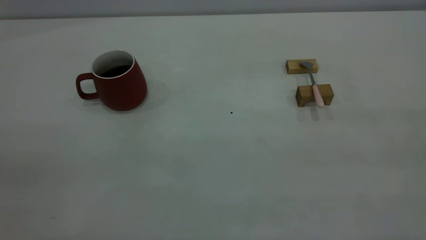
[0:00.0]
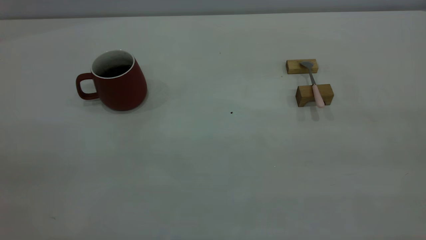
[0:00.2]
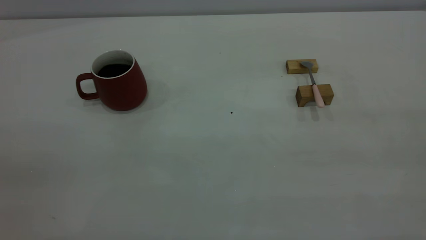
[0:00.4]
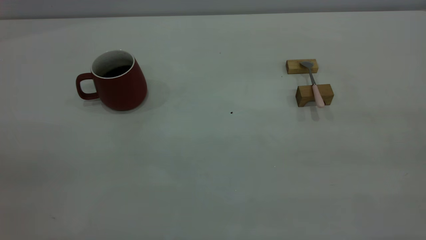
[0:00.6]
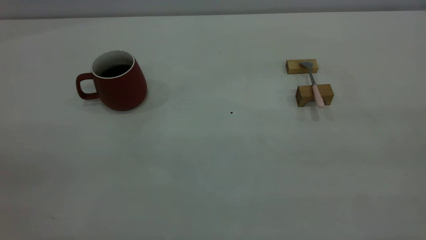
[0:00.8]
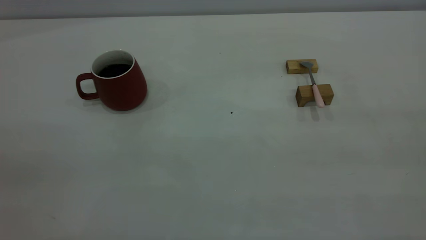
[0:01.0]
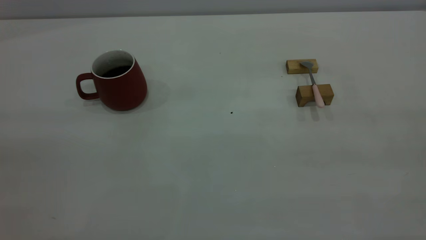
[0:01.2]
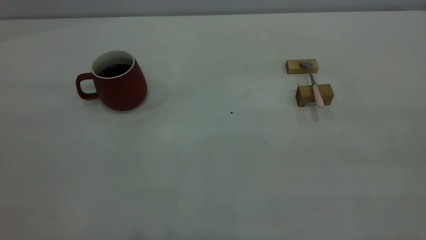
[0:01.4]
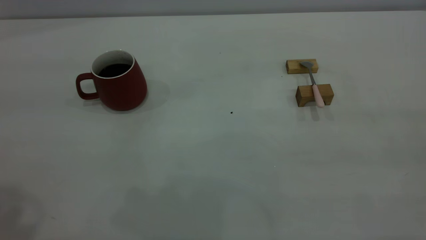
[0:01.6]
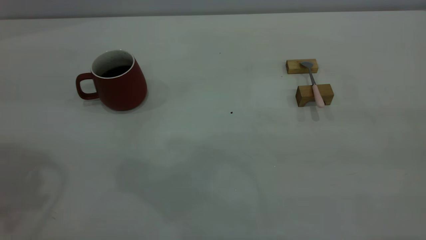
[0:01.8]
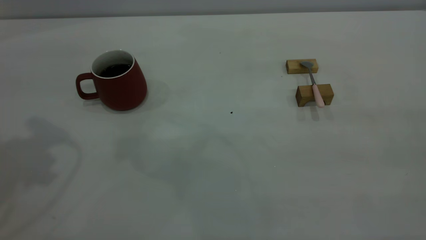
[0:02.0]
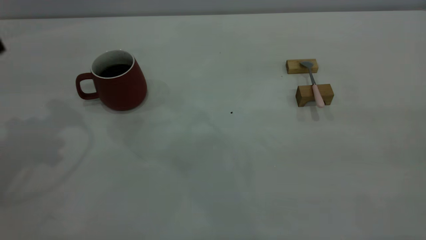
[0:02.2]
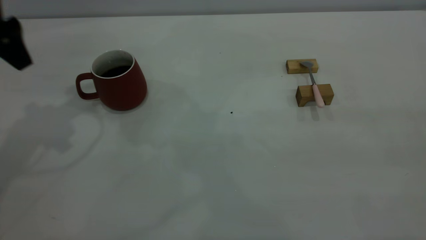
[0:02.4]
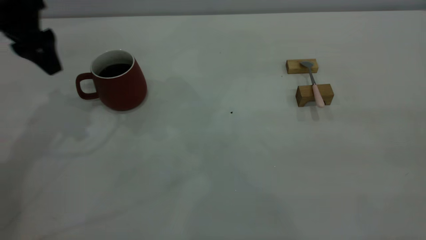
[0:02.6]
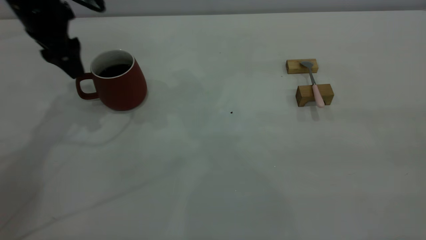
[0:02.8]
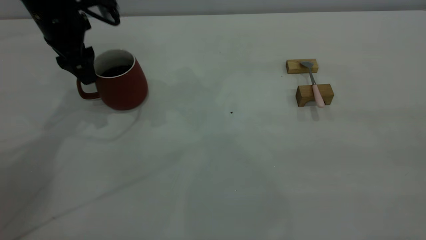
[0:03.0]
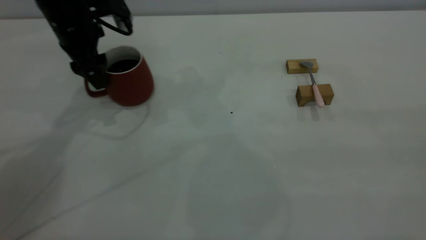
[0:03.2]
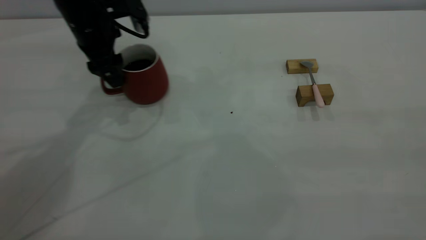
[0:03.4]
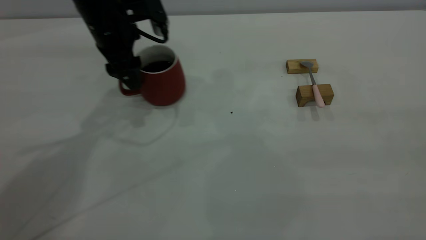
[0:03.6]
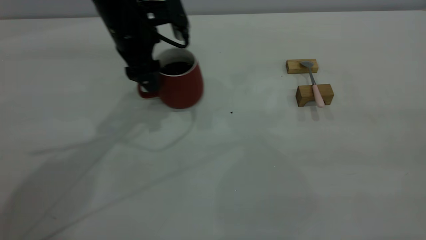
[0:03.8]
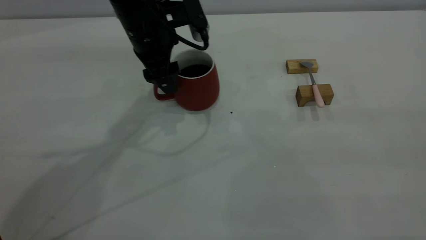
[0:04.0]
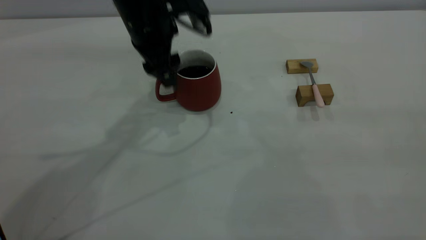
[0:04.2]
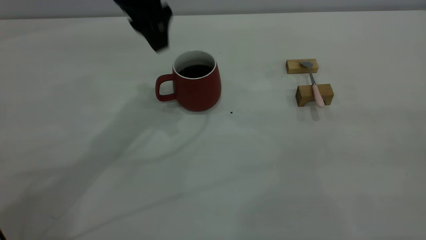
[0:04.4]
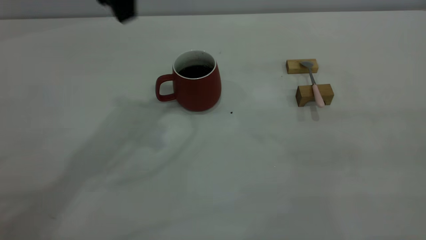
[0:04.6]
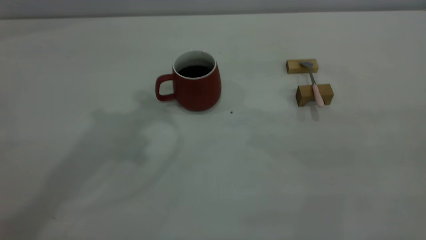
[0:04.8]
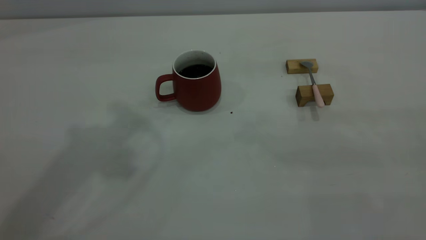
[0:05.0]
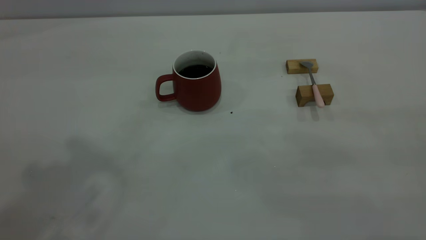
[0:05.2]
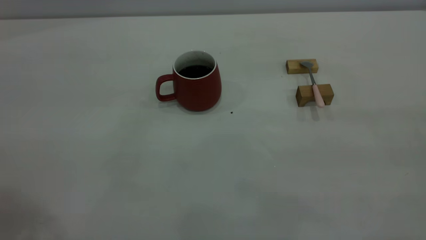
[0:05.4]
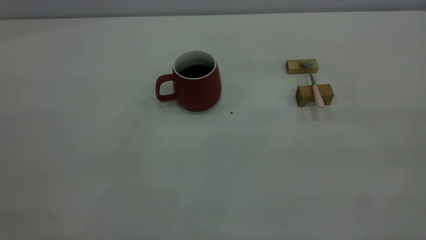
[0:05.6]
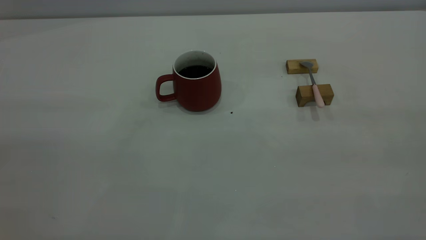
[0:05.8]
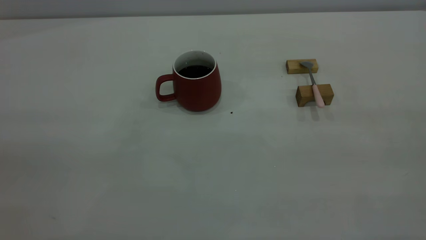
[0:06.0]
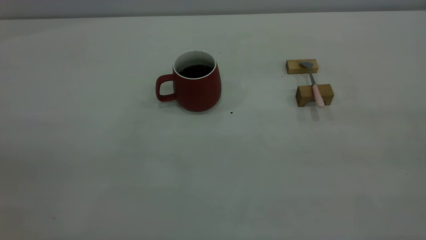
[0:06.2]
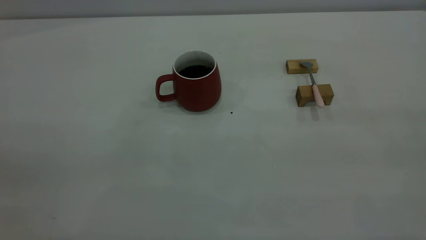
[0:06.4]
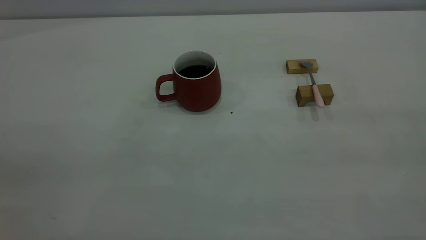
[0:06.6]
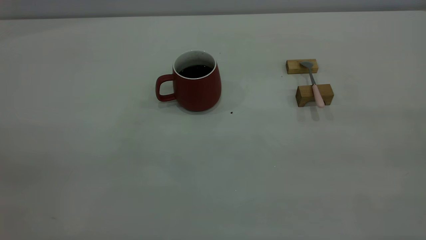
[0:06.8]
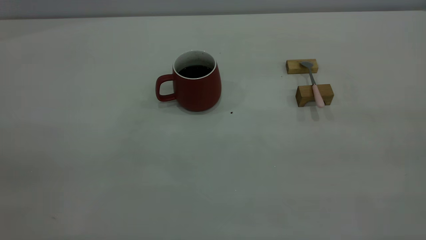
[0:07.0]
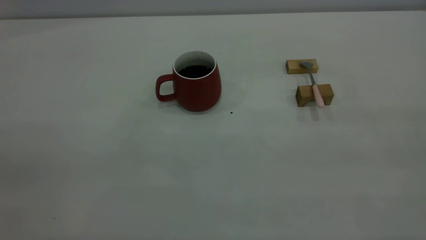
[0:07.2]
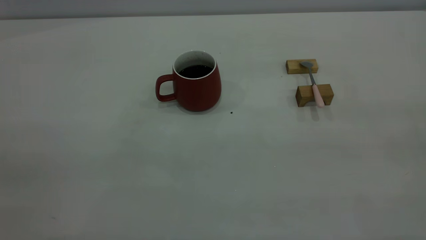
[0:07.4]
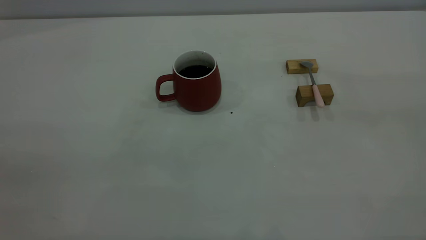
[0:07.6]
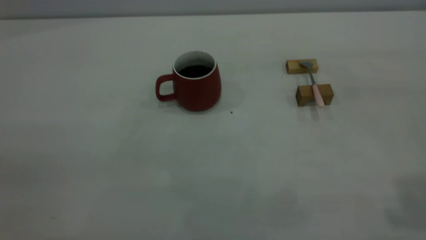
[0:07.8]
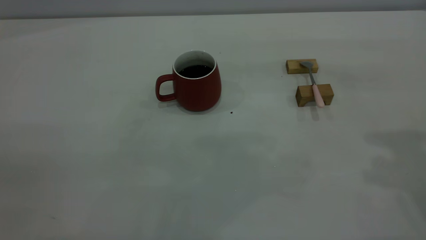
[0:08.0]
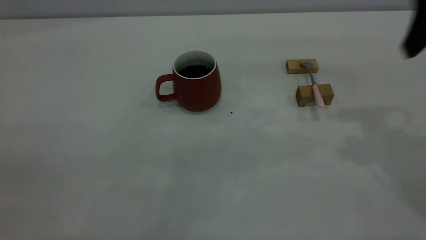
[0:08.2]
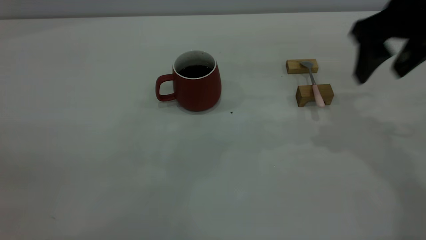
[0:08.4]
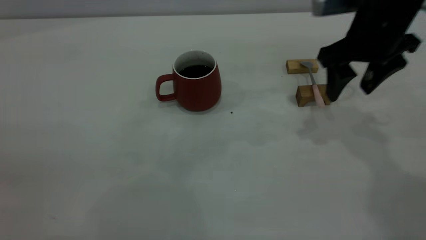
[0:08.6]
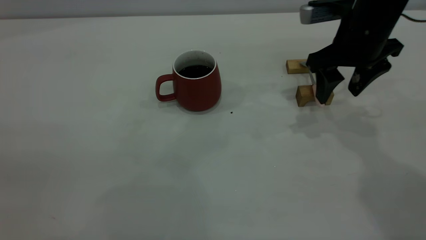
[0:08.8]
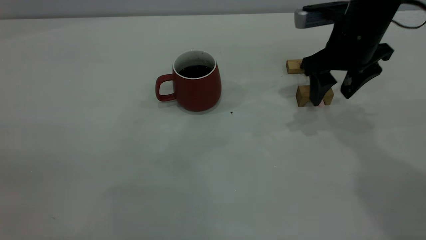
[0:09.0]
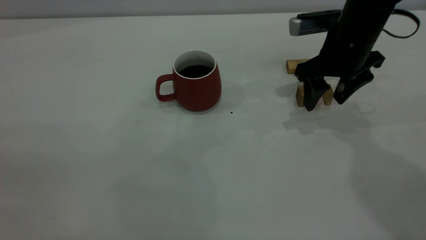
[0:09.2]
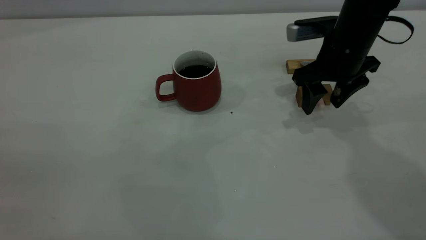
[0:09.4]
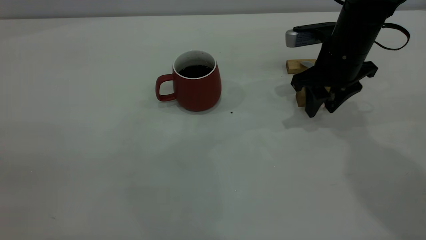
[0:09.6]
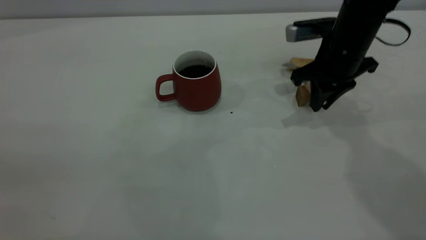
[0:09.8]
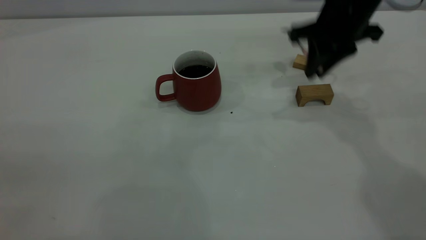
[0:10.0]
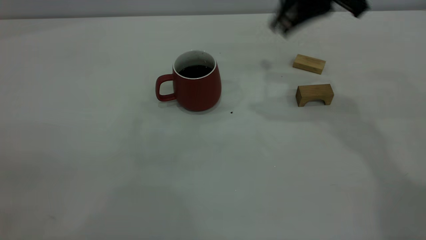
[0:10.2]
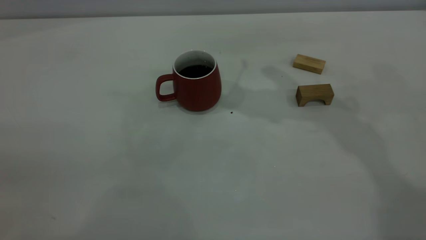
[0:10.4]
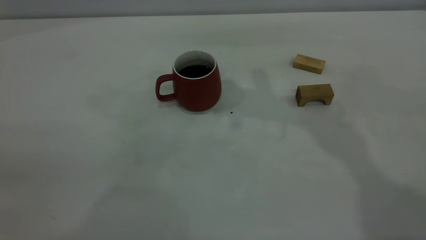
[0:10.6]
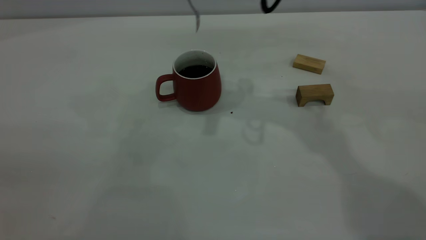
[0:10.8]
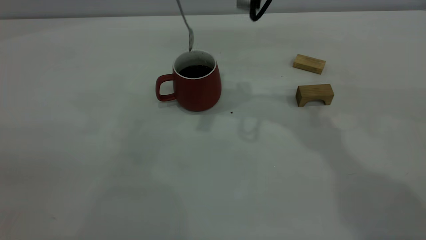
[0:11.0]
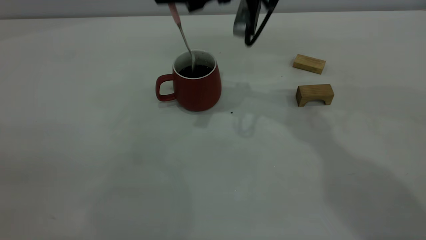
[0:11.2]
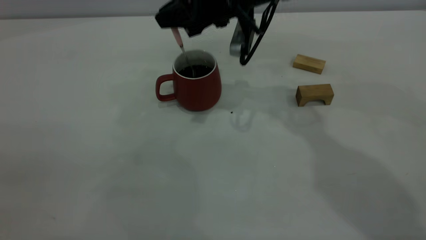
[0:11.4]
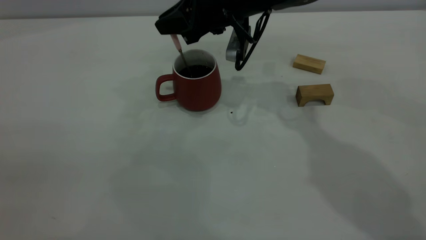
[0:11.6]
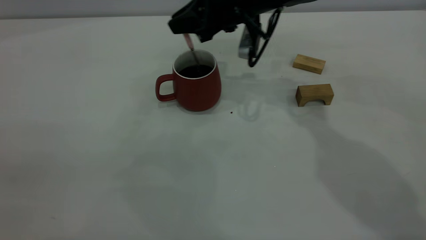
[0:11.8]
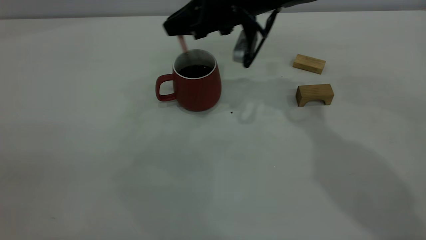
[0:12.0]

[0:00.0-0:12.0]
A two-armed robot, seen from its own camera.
Step, 0.0 to 4.4 s: Move the cup with coffee to the center of view.
Step, 4.6 to 9.8 s: Pick up the spoon.
1.6 to 3.0 s: The left gripper heads forward and downward, covering some 35 cm.
3.0 to 4.4 s: The left gripper goes roughly 15 cm to the right and upward.
4.4 to 6.0 s: The left gripper is displaced backward and to the left by some 40 cm.
7.6 to 9.0 s: The right gripper goes some 40 cm forward and downward, and opens.
9.0 to 10.4 s: The right gripper moves upward and to the left, roughly 15 cm, and closes.
10.4 to 12.0 s: The right gripper heads downward and to the left, covering about 15 cm.

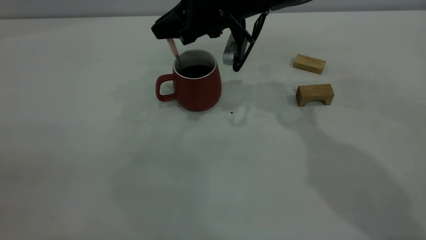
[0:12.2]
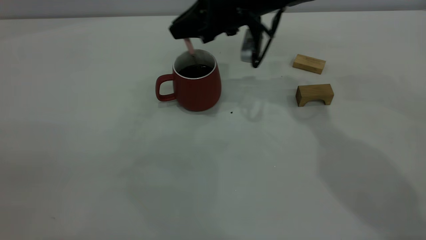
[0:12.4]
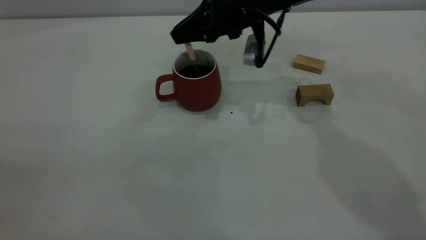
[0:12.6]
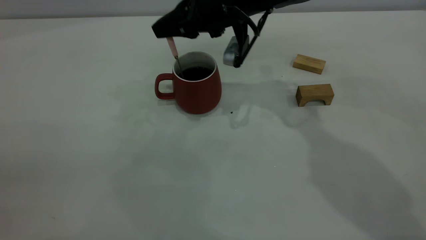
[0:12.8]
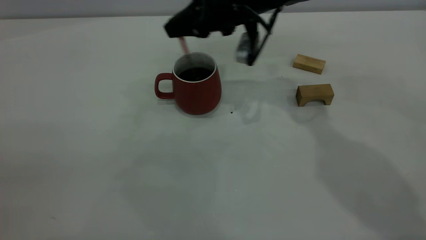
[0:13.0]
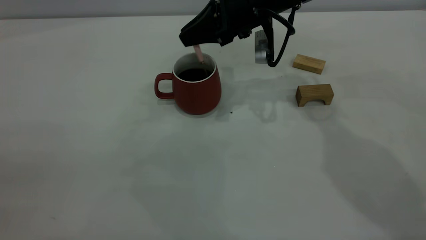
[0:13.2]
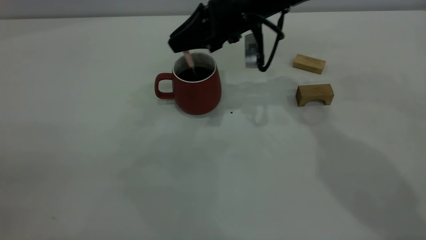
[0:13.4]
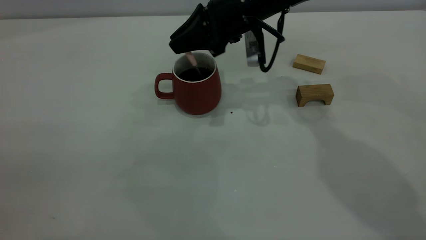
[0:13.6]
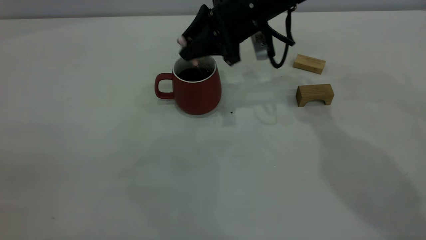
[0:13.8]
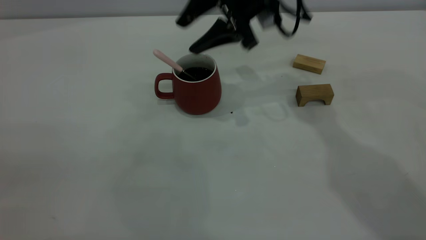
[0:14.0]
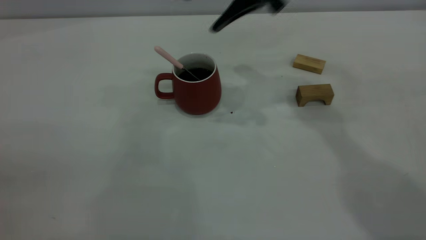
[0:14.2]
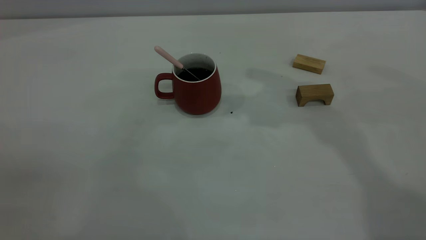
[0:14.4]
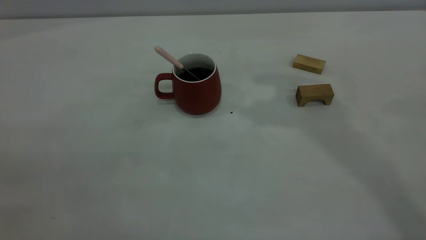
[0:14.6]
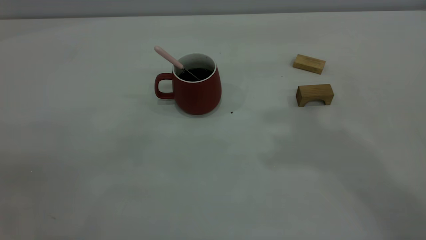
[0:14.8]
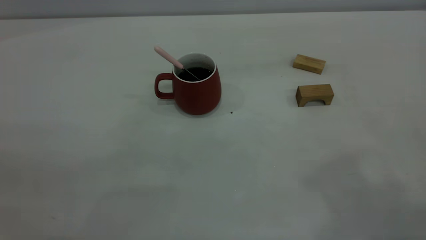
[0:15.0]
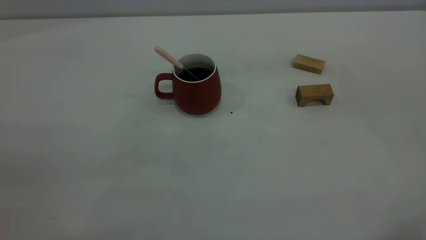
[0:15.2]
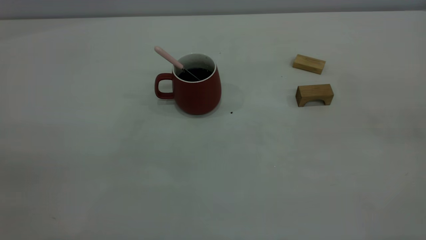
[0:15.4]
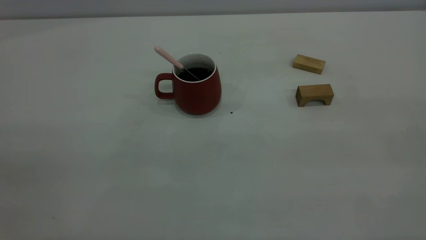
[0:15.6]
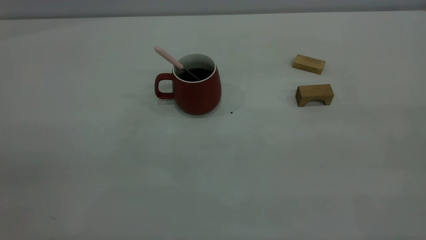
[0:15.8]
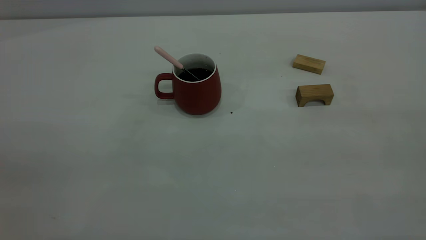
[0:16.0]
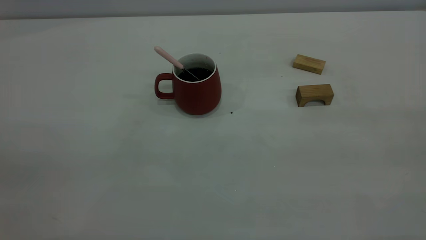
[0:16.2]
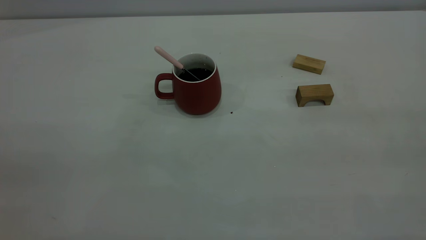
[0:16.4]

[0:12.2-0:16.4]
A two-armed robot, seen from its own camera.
12.2 to 13.6 s: There are only small adjustments of the grippers.
13.6 to 15.0 s: The right gripper shifts some 40 cm upward, backward and to the right, and opens and closes again.

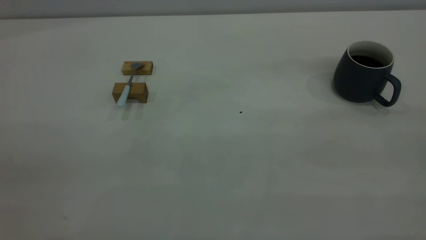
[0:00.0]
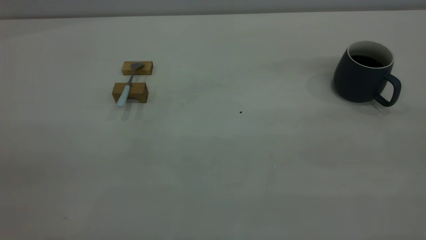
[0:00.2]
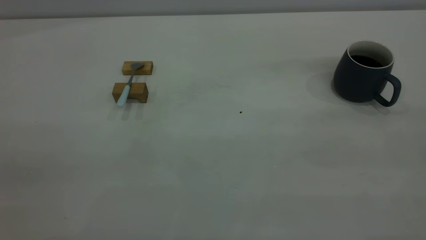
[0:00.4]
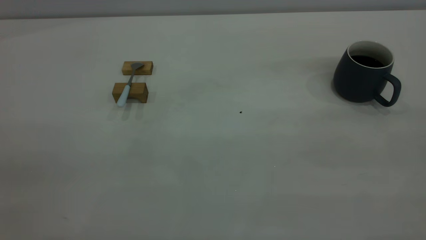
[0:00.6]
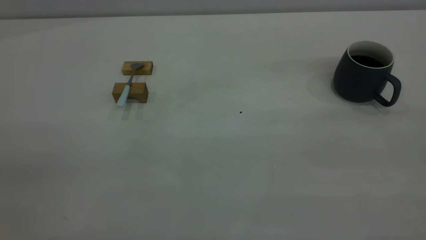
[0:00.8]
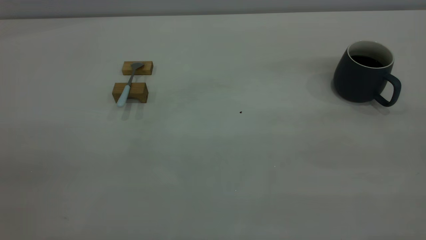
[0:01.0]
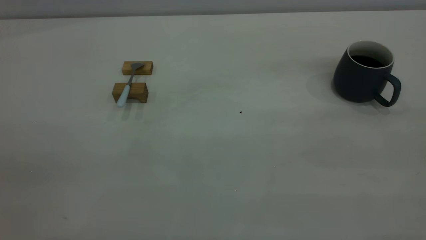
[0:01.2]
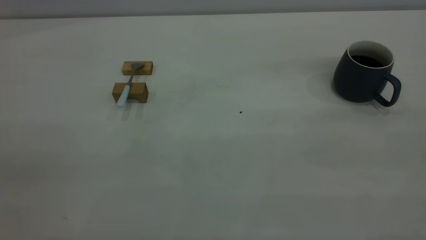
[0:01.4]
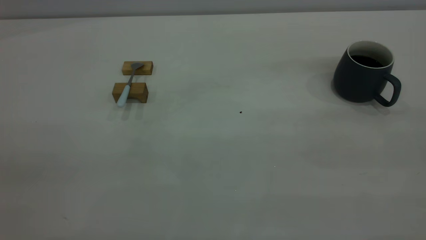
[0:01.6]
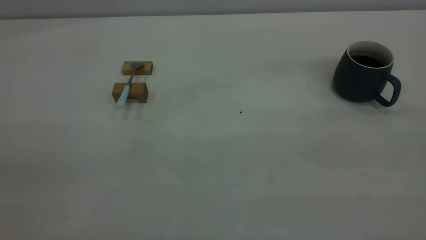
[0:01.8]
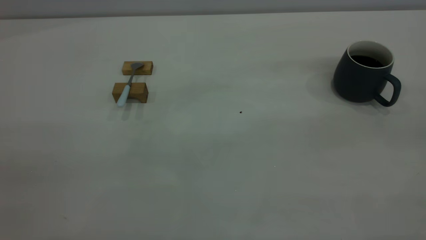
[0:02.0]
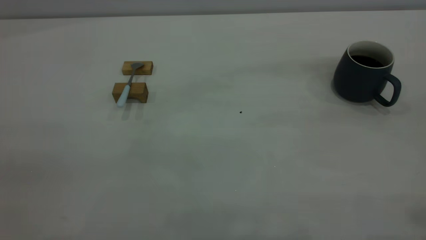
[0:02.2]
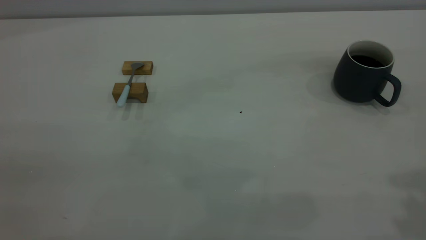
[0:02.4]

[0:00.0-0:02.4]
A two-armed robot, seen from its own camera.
0.0 to 1.2 s: The two grippers keep their place.
